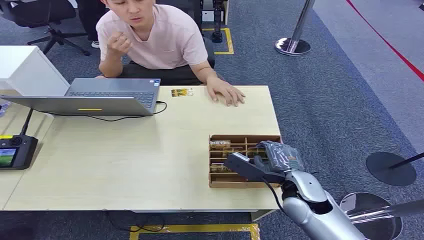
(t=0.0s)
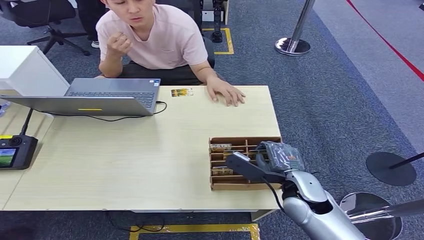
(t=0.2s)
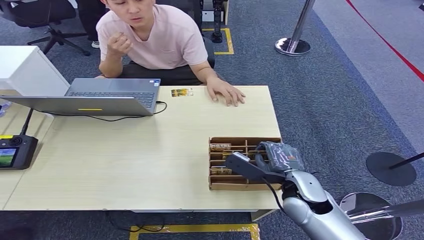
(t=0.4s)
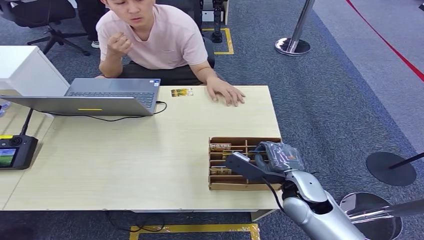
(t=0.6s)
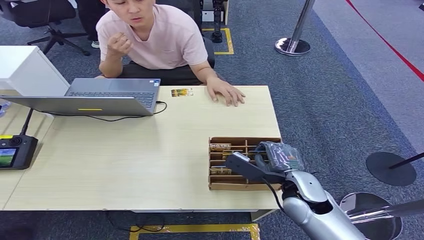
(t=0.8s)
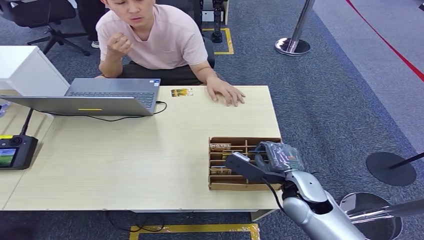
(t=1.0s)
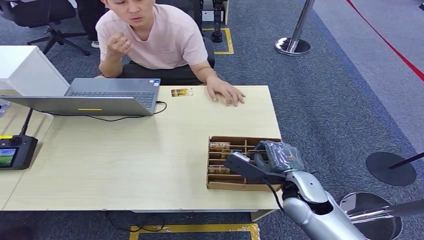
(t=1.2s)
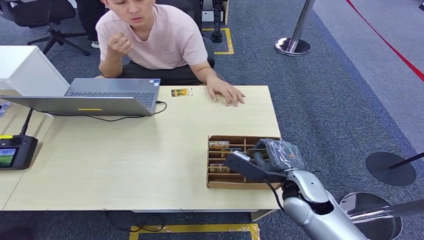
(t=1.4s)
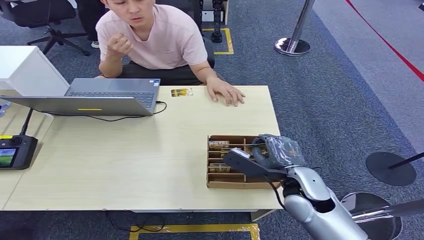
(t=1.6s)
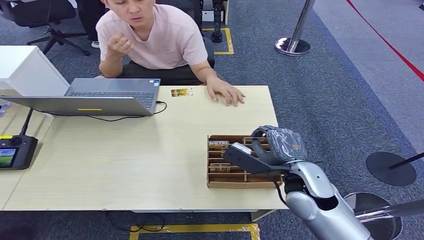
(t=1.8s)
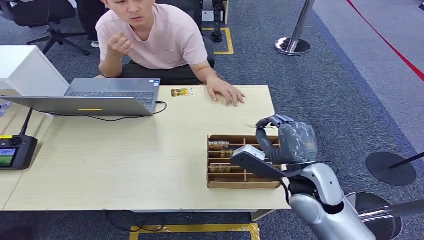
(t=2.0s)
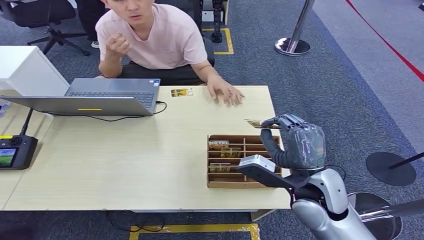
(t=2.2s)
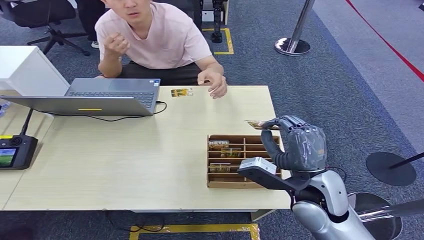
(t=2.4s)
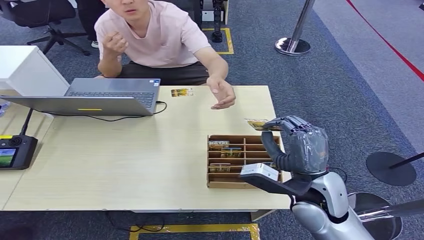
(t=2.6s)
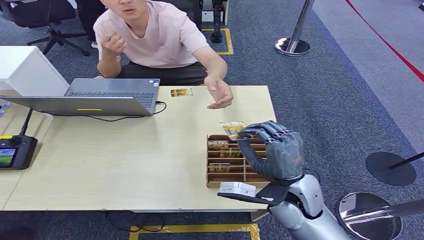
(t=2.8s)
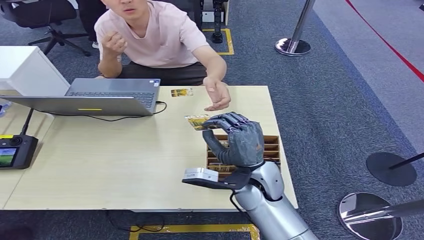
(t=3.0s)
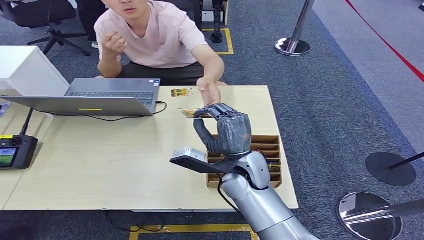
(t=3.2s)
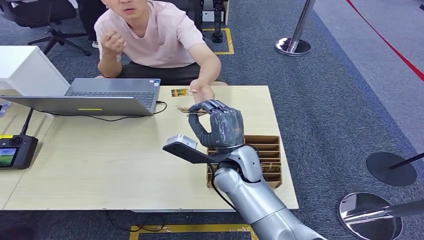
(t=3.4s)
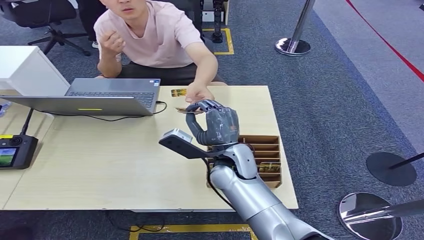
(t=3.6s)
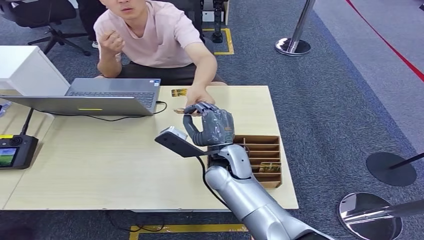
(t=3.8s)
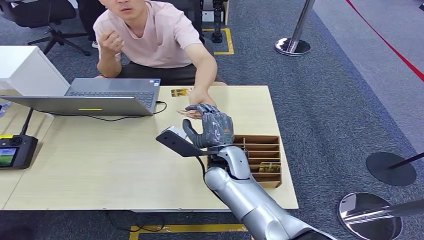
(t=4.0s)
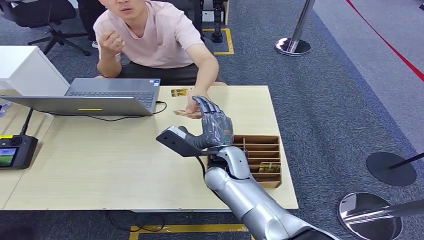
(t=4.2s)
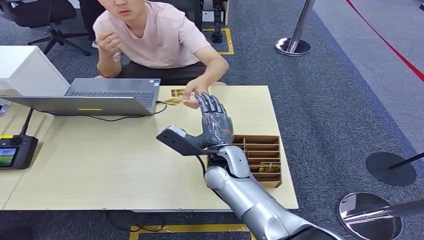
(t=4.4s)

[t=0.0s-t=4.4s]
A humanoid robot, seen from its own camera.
Step, t=0.0s to t=2.6s: Pick up the key card from the card box.
Step, t=2.8s to t=4.4s: Hand the key card to the target.
t=1.4s to t=3.0s: The right hand heads to the left, covering roughly 10 cm.
t=3.0s to t=4.4s: The right hand travels to the left and forward by roughly 10 cm.
